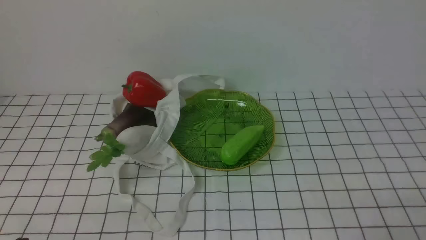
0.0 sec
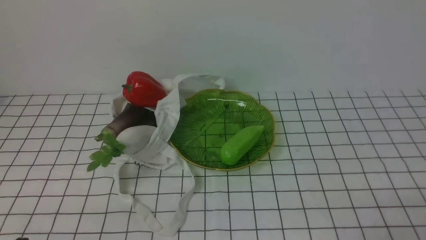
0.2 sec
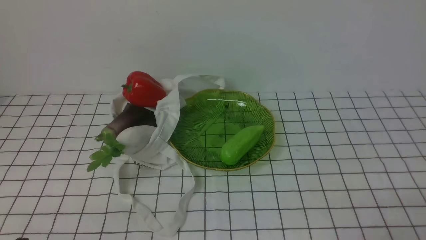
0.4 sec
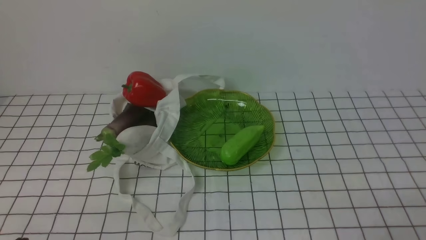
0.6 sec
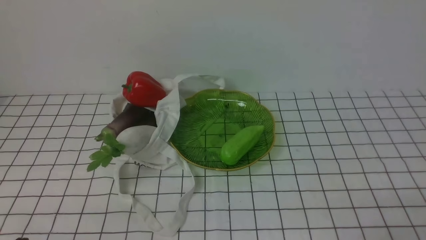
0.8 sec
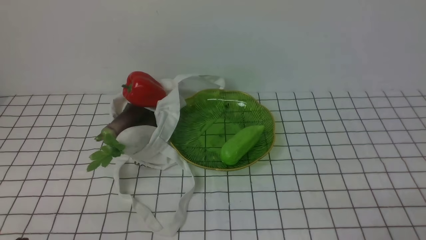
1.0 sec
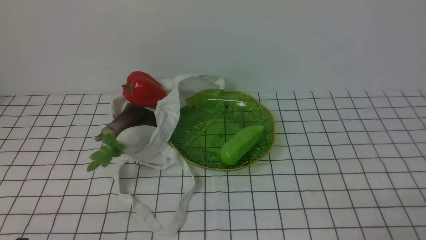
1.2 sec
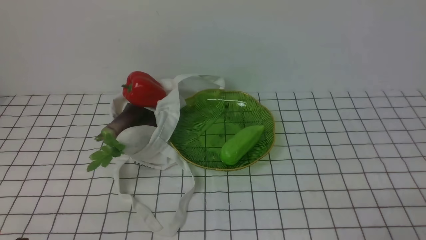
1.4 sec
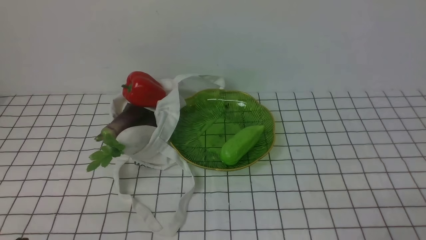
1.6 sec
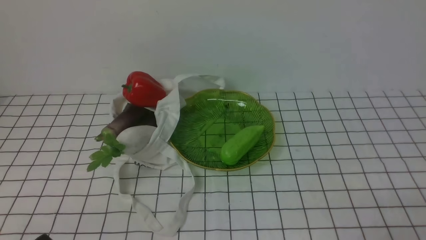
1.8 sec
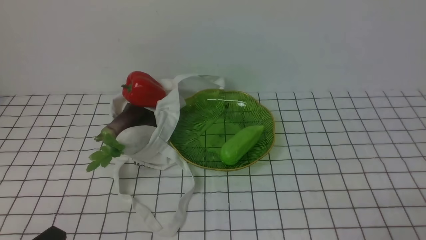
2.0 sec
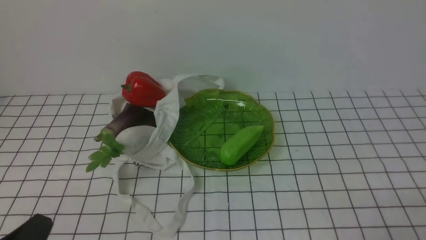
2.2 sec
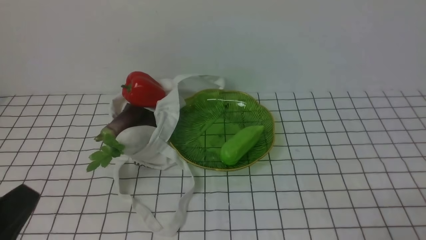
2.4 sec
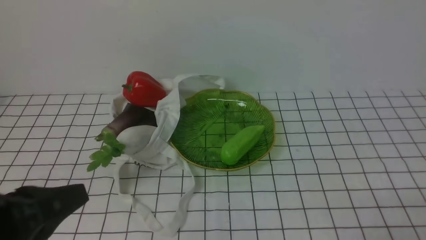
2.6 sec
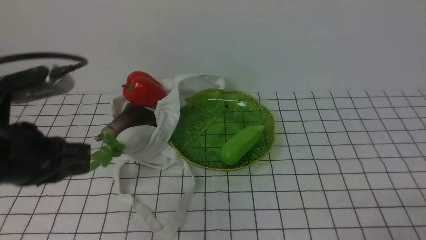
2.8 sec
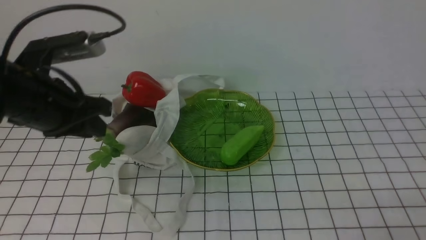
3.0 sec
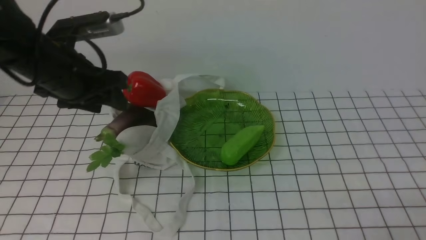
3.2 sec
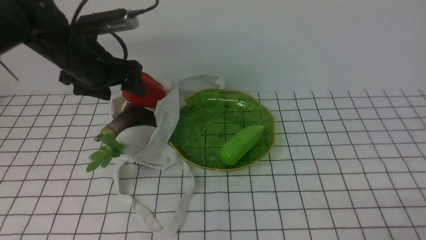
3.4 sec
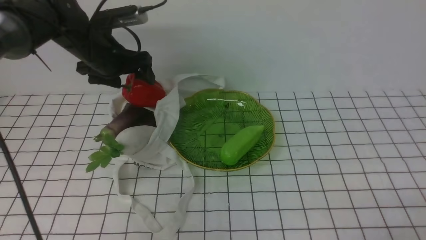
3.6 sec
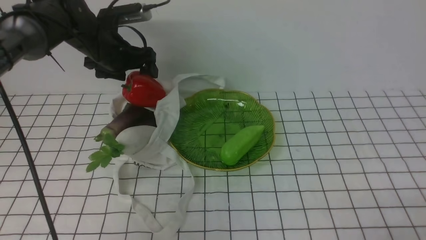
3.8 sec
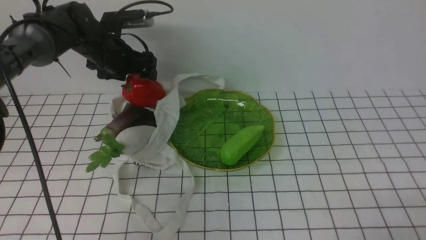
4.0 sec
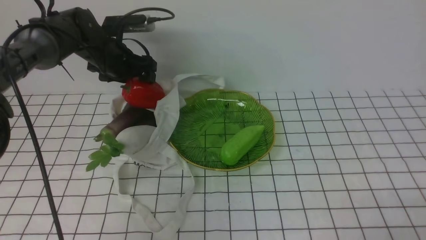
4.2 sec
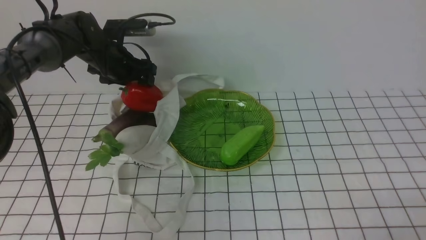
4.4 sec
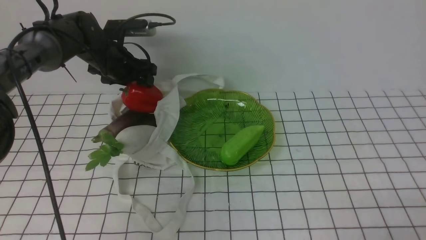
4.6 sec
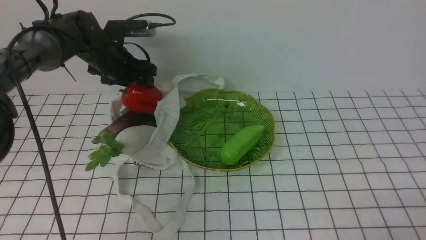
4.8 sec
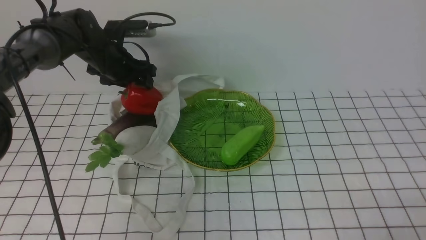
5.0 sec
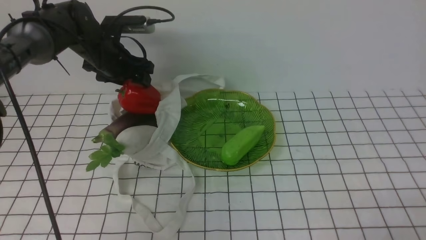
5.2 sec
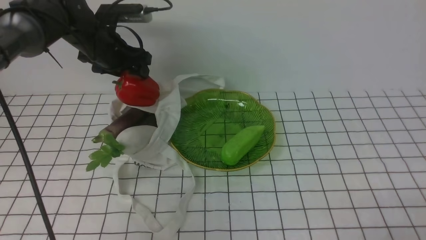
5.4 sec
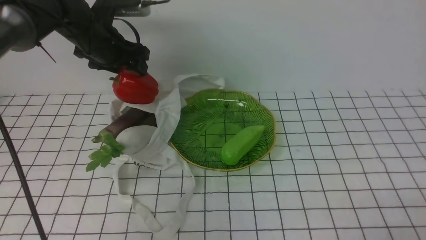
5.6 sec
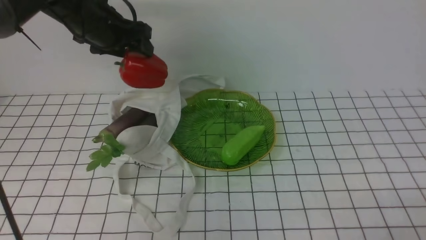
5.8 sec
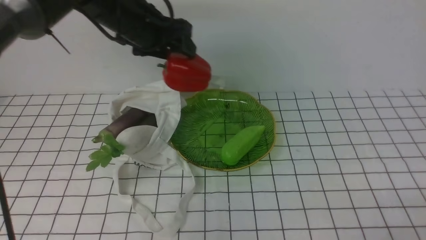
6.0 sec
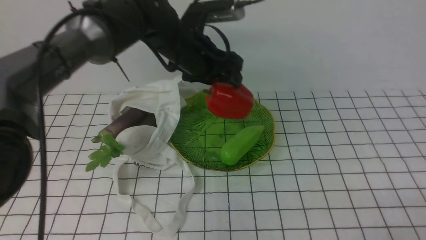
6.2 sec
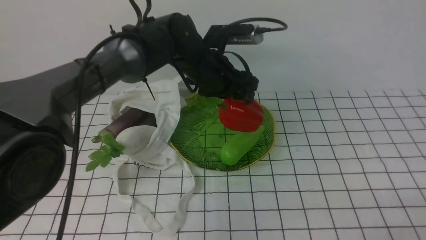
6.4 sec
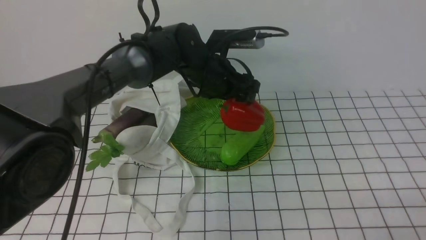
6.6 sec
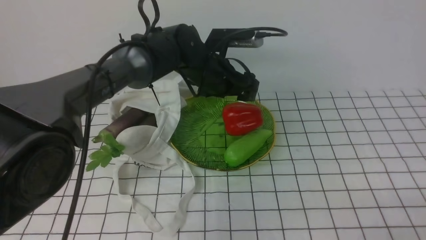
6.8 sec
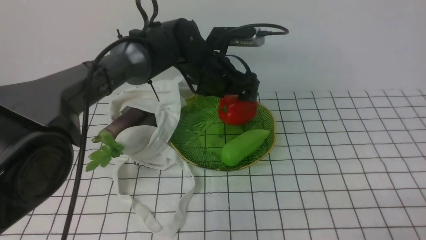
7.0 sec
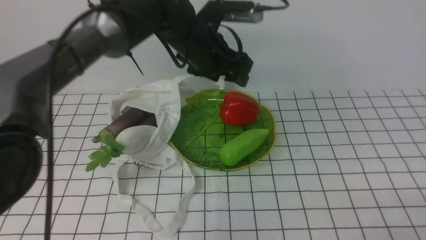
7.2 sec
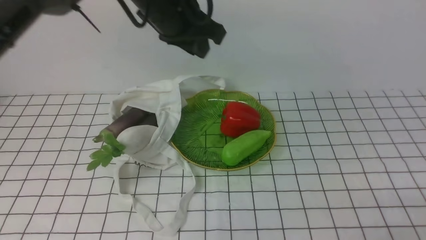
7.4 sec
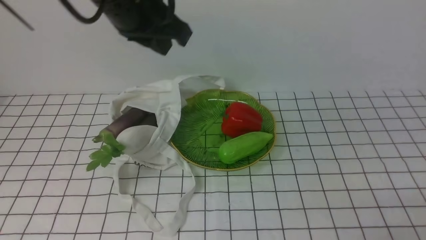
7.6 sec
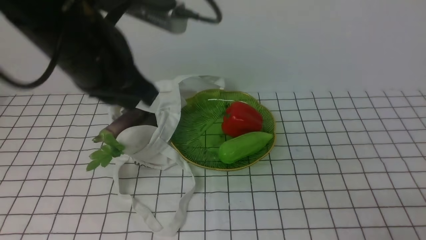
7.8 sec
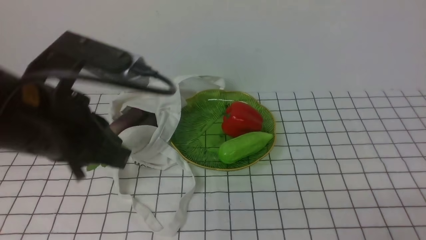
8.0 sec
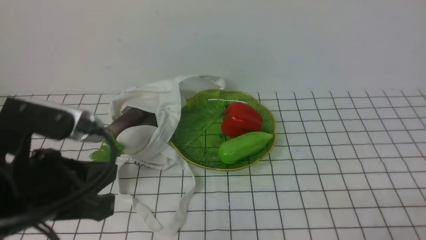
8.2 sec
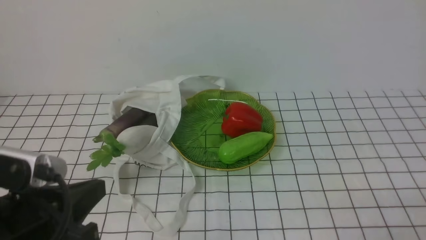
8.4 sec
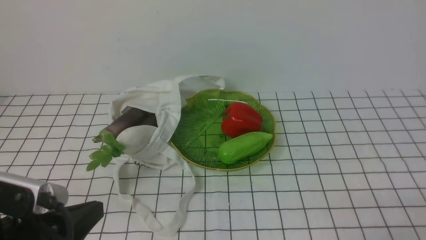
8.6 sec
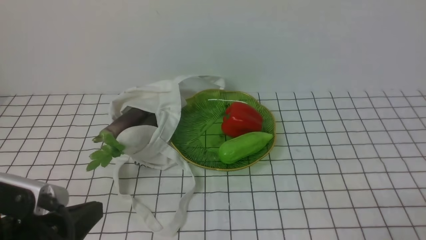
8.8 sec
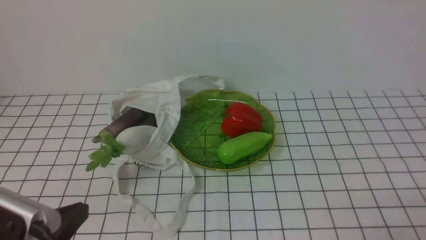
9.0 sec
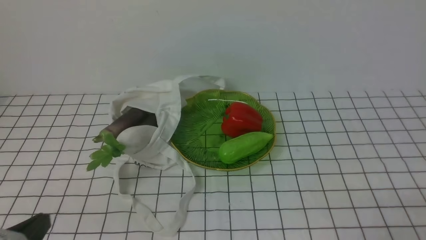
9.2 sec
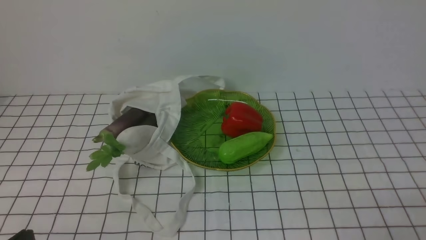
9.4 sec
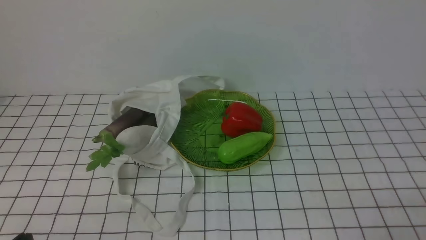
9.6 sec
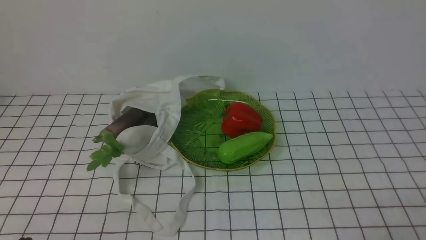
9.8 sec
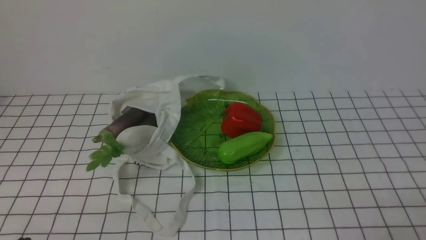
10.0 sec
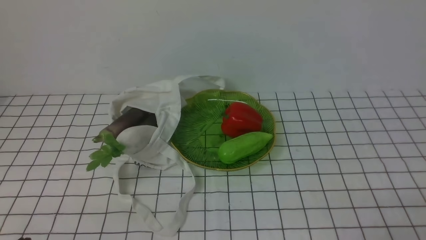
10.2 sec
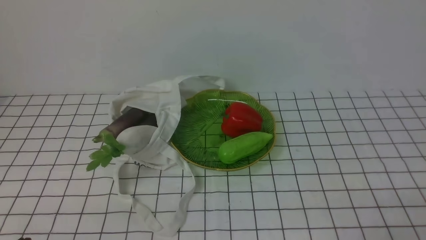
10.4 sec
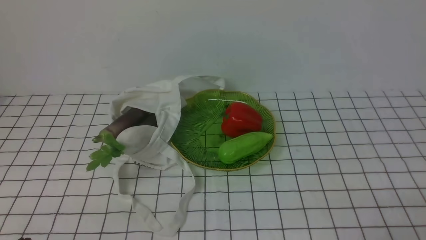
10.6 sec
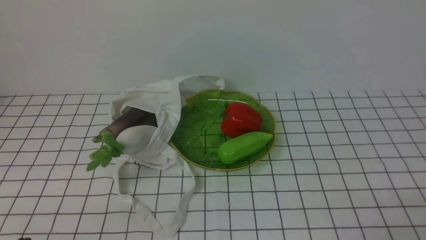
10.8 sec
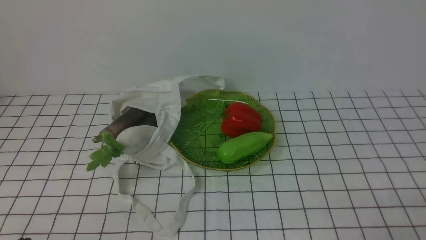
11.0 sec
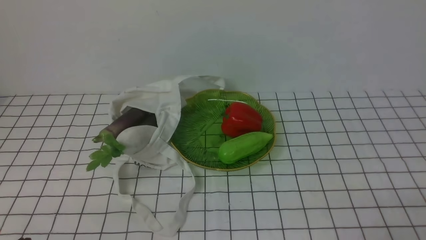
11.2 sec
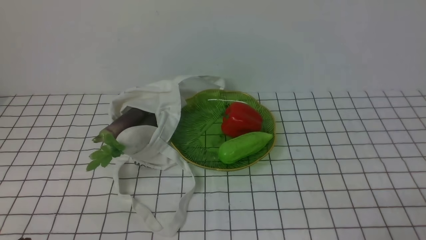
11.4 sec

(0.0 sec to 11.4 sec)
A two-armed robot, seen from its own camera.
Task of the whole recording: take vegetables from bag on white checkered tablecloth place on plate.
Step, 0.0 sec - 5.0 sec: Grasp the bell pepper with left gripper.
Step, 5.2 sec - 7.0 sec: Place the bell pepper on the plate with left gripper.
1.4 sec - 2.8 sec: The left gripper is displaced upward and forward by approximately 20 cm.
2.8 sec - 4.2 sec: The left gripper goes about 35 cm forward, and opens its fingers.
4.2 sec - 5.6 sec: The left gripper changes place by about 5 cm.
5.6 sec - 7.2 sec: The left gripper heads to the right, covering roughly 15 cm.
7.2 sec - 8.6 sec: The left gripper moves backward and to the left, approximately 35 cm, and closes its fingers.
8.6 sec - 10.0 sec: The left gripper goes roughly 10 cm downward, backward and to the left.
10.0 sec - 11.4 sec: Both grippers stay about where they are.

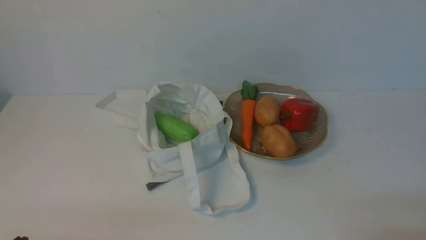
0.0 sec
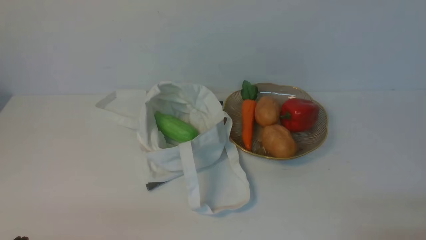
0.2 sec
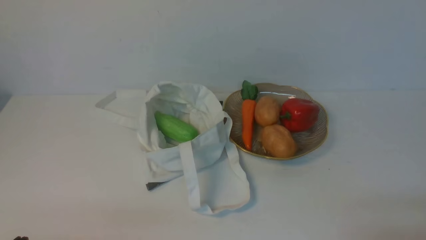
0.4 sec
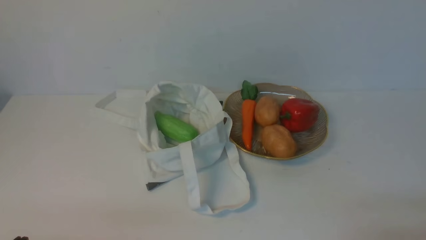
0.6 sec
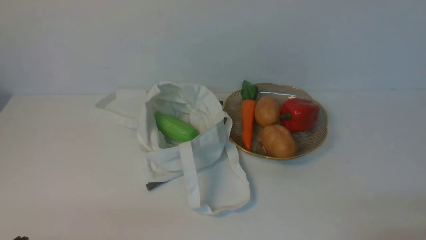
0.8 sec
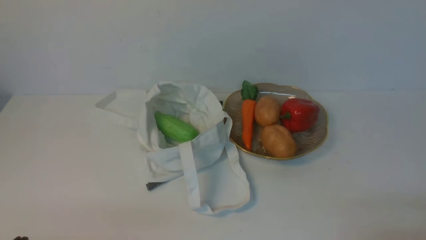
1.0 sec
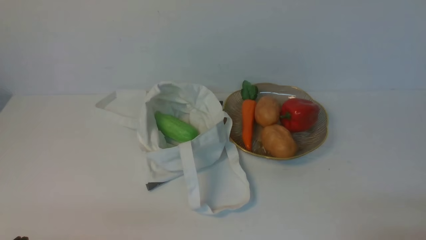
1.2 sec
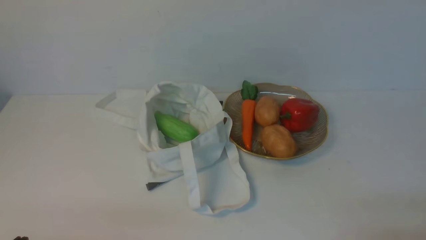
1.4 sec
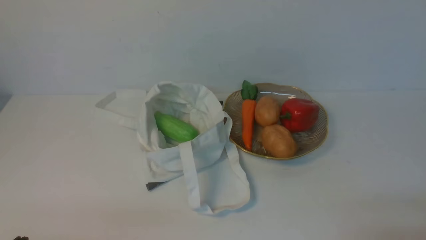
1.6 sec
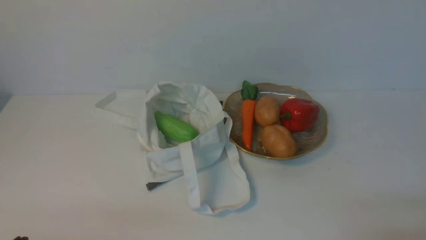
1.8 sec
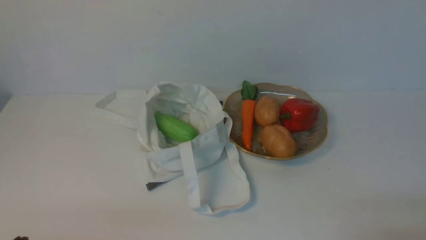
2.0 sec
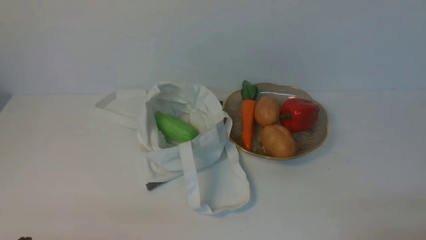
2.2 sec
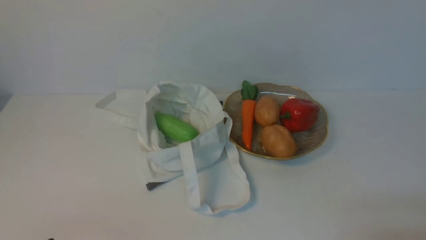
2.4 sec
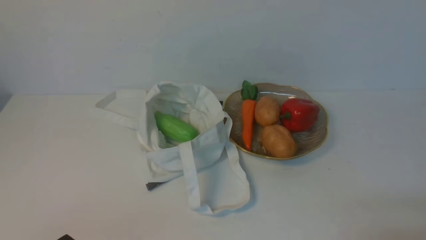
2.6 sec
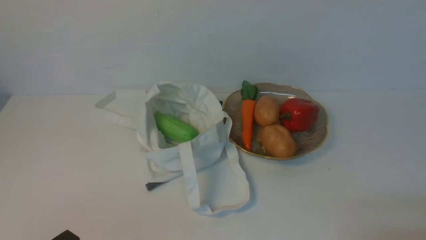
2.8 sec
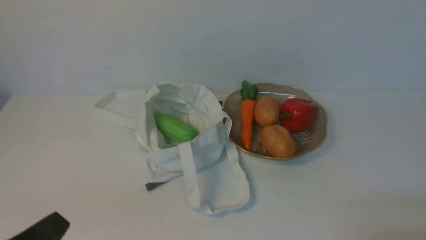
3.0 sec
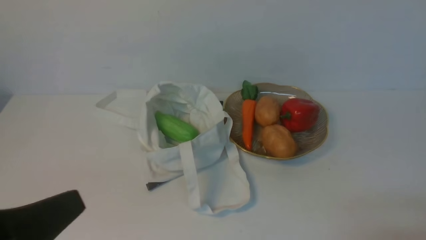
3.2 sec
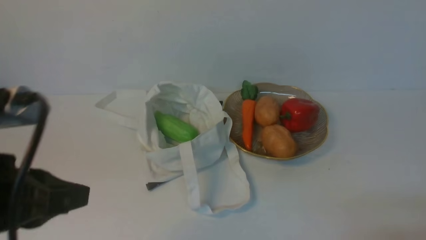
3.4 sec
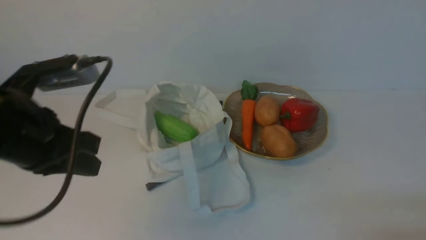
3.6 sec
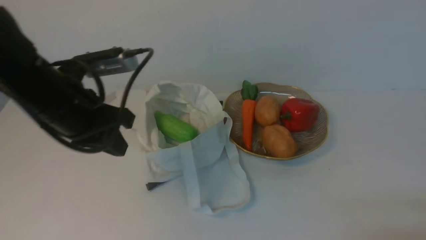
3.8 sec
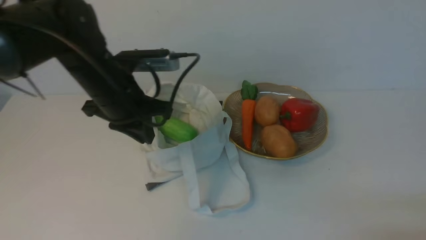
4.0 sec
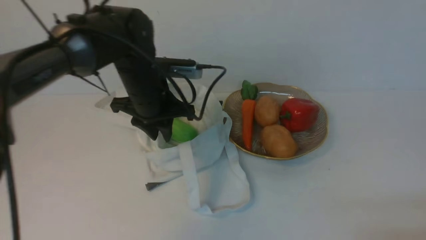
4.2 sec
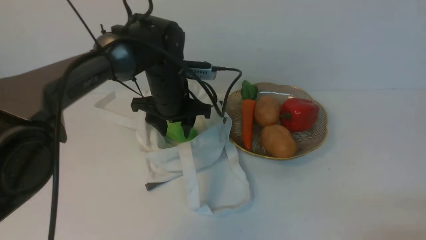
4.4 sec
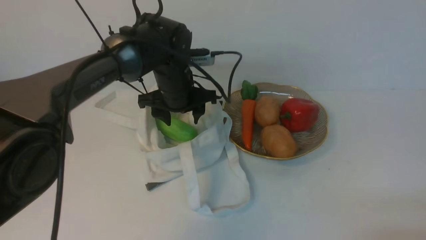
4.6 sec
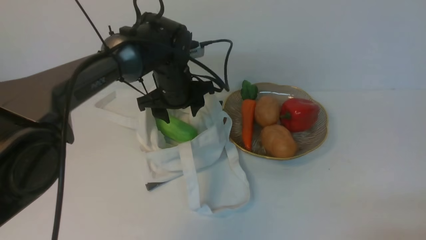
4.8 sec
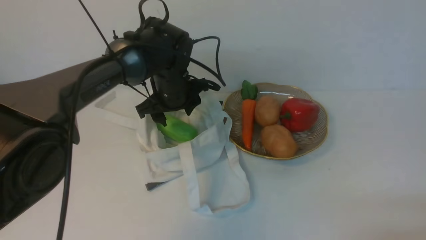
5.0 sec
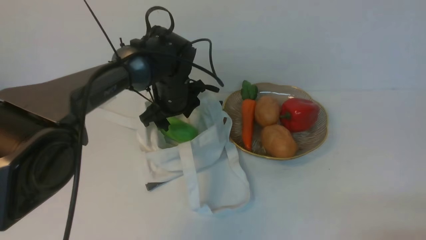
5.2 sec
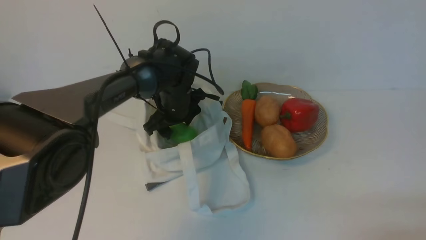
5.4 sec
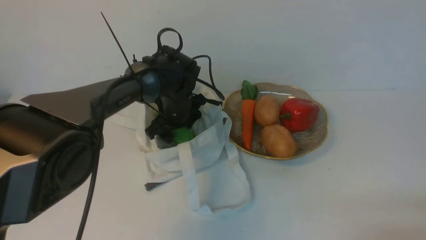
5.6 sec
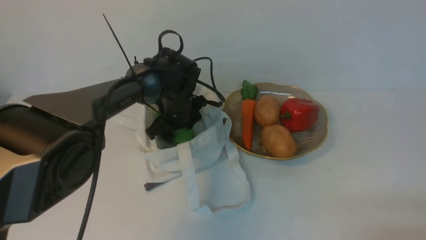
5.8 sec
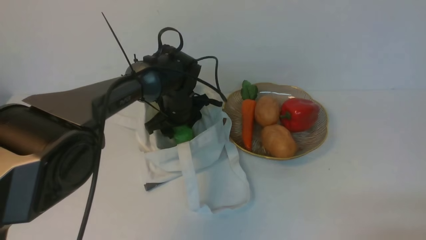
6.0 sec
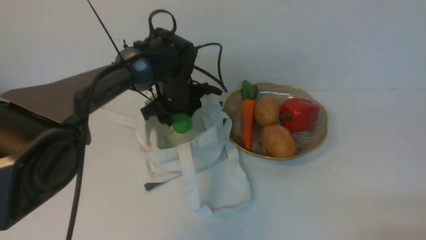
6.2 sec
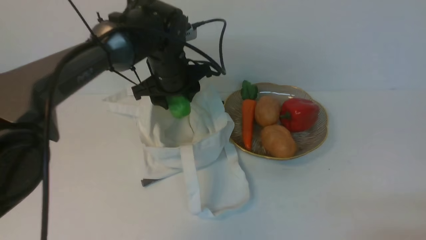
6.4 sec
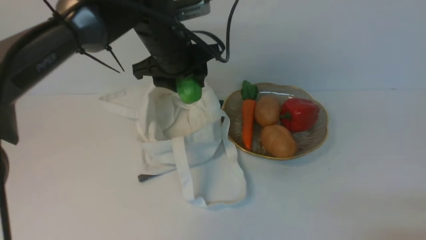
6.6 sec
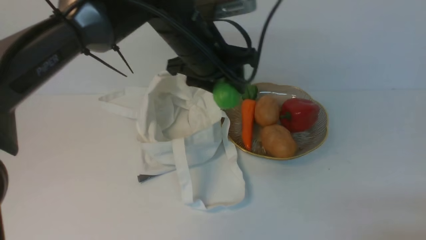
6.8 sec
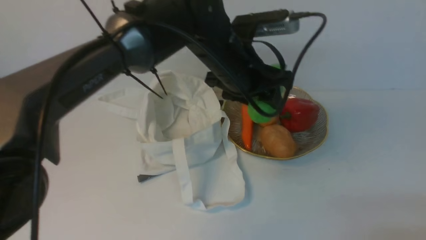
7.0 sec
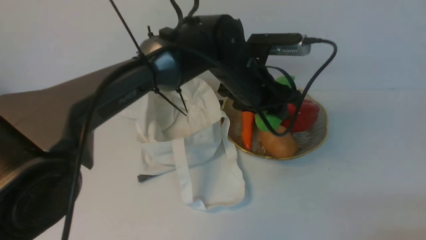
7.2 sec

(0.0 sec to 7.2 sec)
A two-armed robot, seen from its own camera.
Task of the whole recording: take vegetables from cloth bag on white table place on plate.
Step, 0.0 sec - 5.8 sec: Grasp the bitter melon with left gripper.
2.8 sec - 4.4 sec: The left gripper moves forward, approximately 35 cm, and opens its fingers.
4.4 sec - 5.8 sec: The left gripper heads downward, covering about 10 cm.
5.8 sec - 7.2 sec: The left gripper heads upward, to the right and backward, covering approximately 15 cm.
